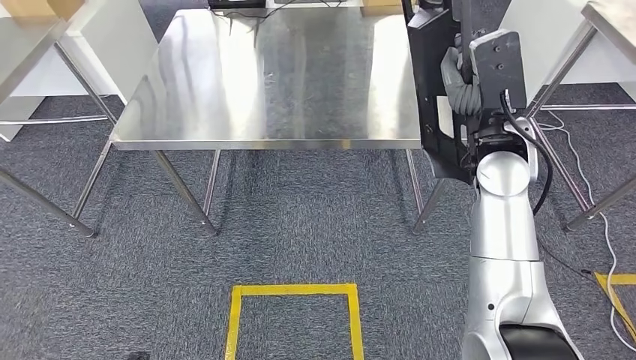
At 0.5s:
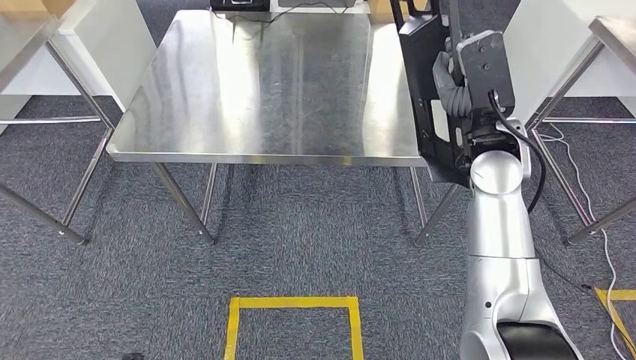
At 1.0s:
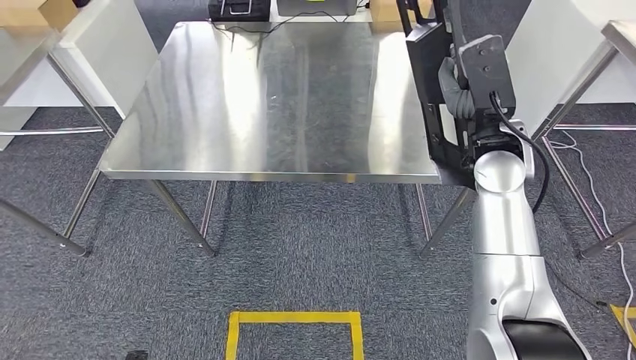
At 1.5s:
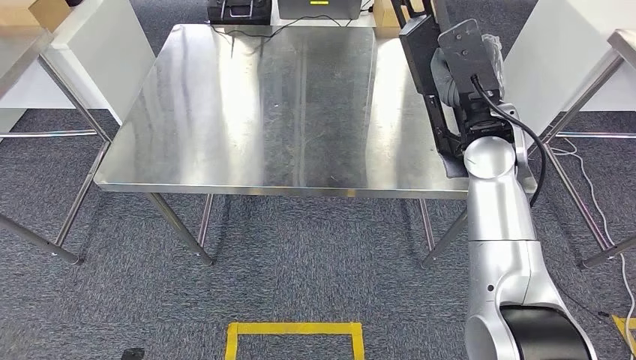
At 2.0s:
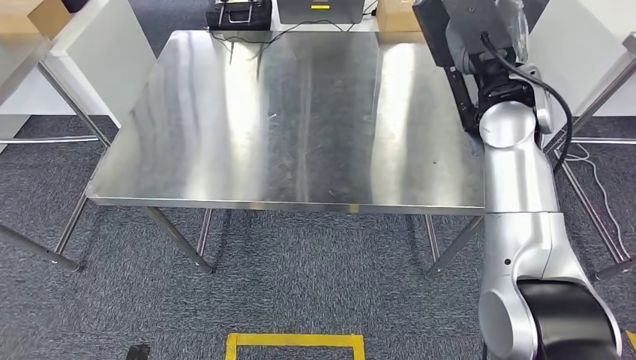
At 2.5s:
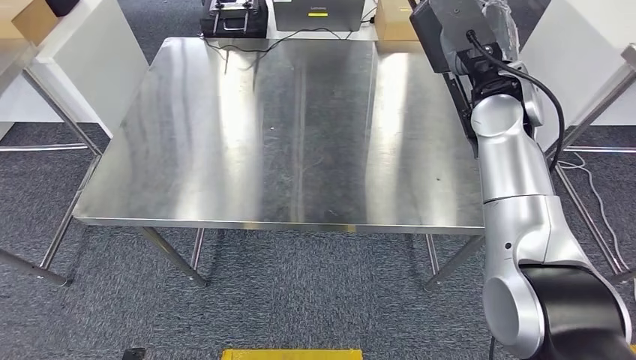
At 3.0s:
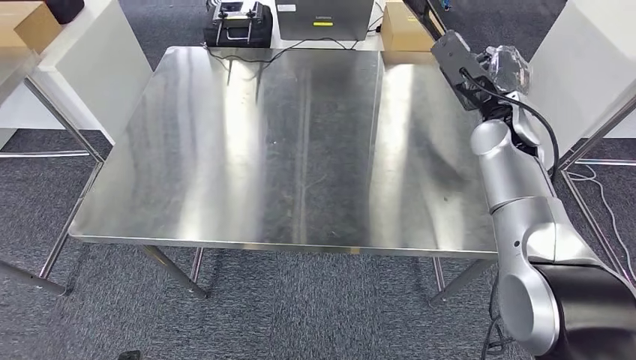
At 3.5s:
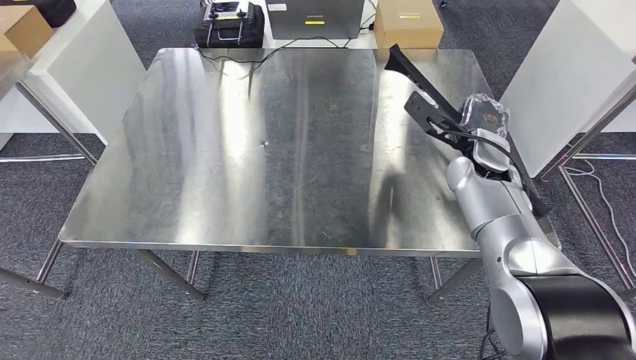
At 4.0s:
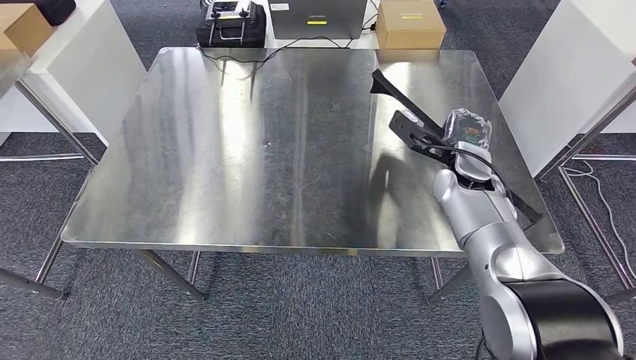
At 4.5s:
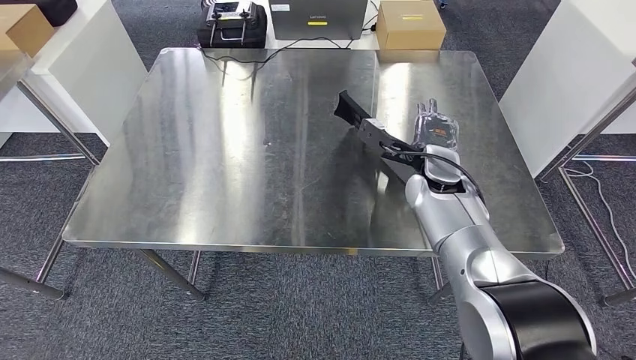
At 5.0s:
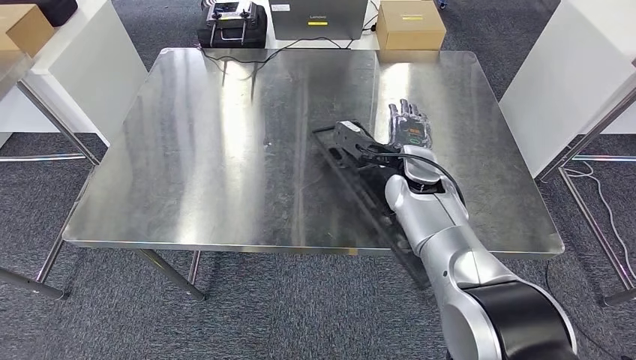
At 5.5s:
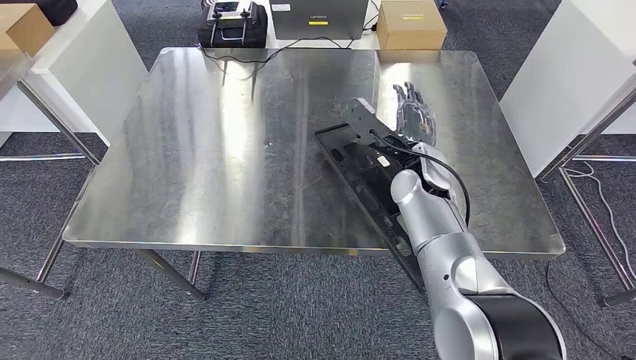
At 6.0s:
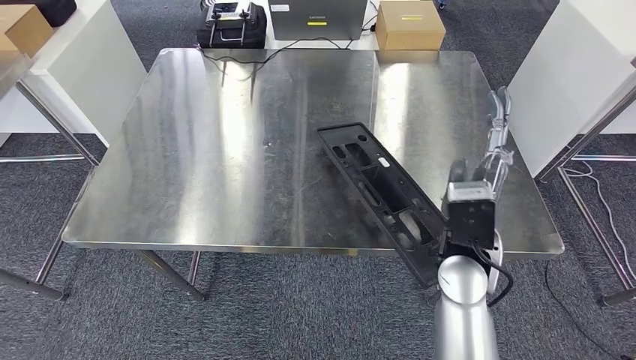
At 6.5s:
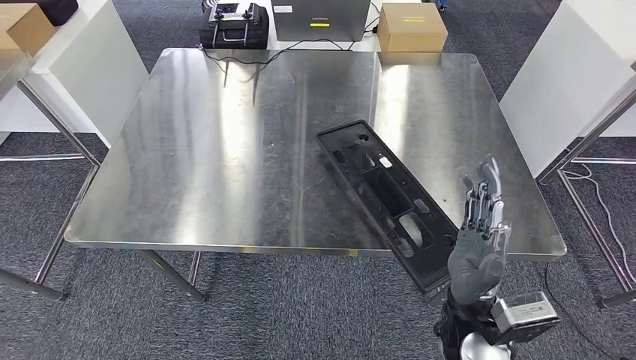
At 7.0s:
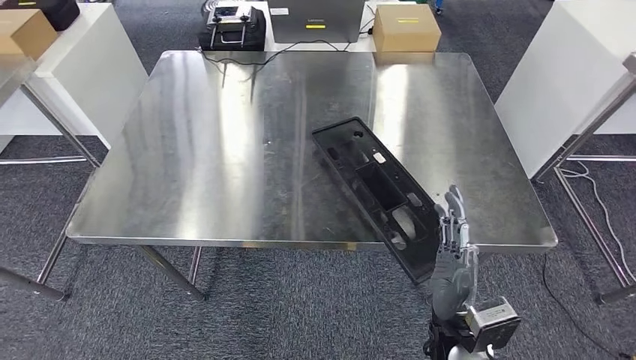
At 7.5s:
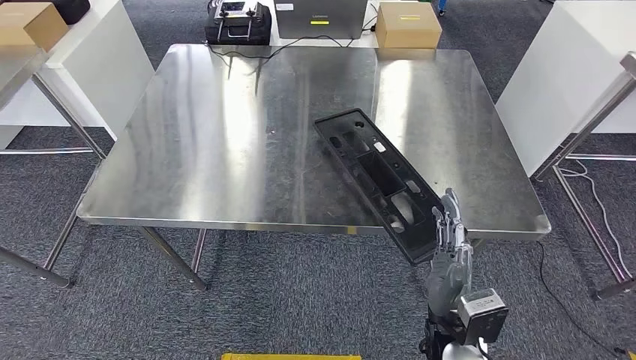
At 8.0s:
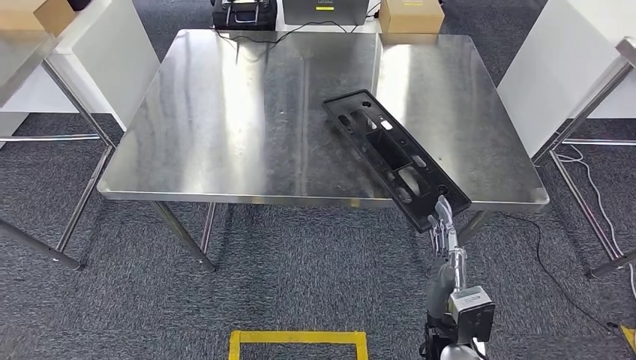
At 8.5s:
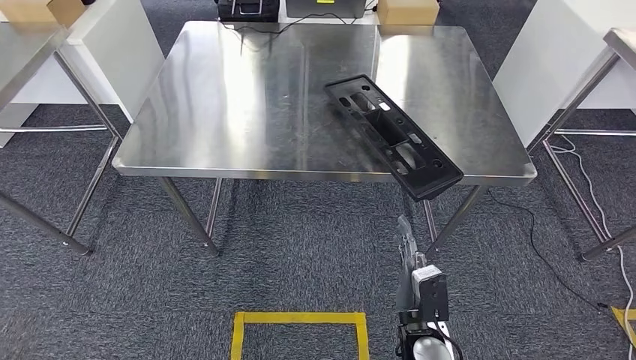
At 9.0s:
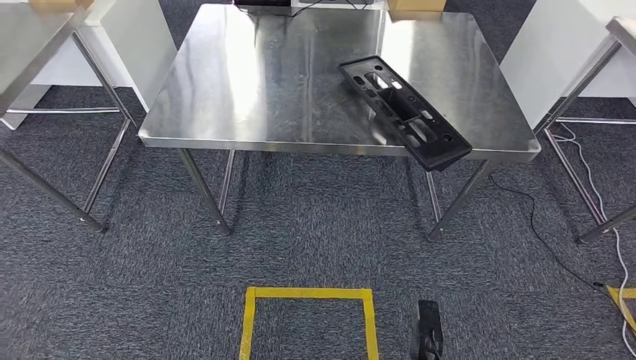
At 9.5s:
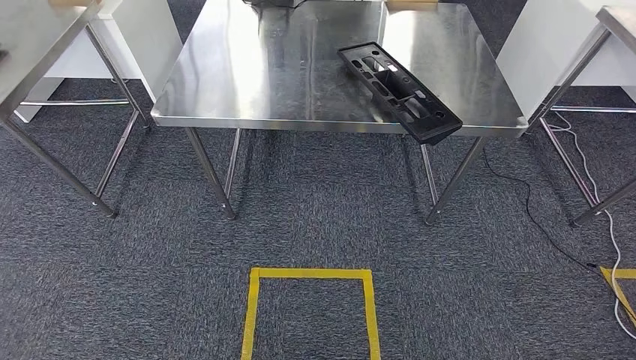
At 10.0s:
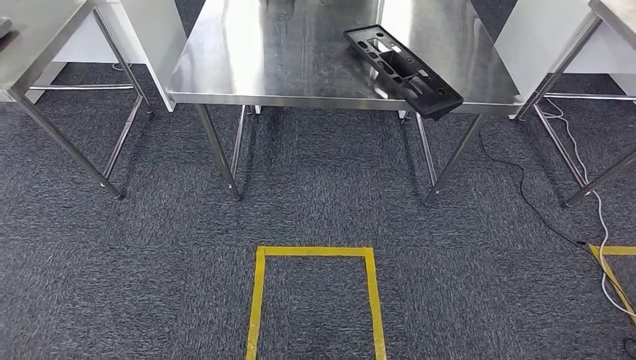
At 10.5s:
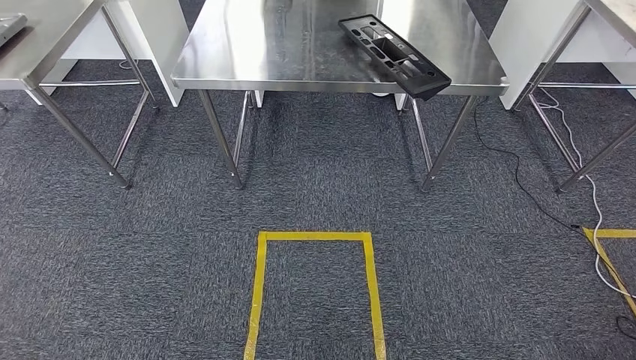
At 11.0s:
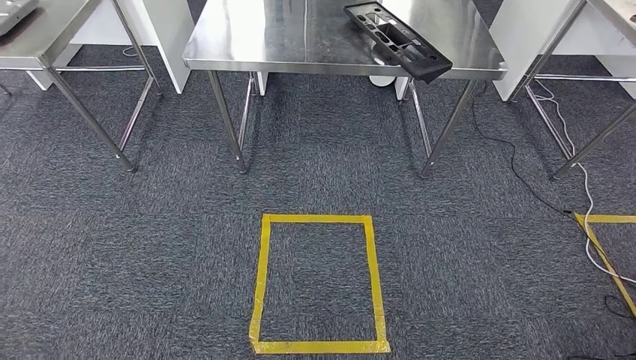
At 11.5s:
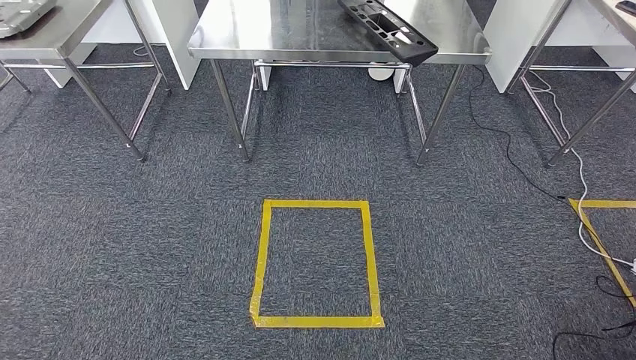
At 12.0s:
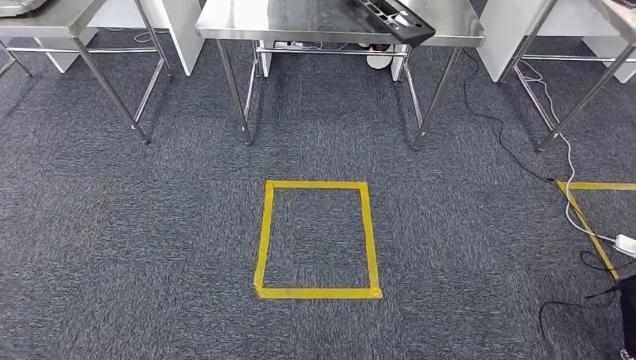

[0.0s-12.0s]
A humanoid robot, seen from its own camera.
Step, 0.0s to 7.5s: Insert the large material into the corresponding slot on the workbench.
4.0s to 6.0s: The right hand shifts roughly 20 cm backward and to the left.

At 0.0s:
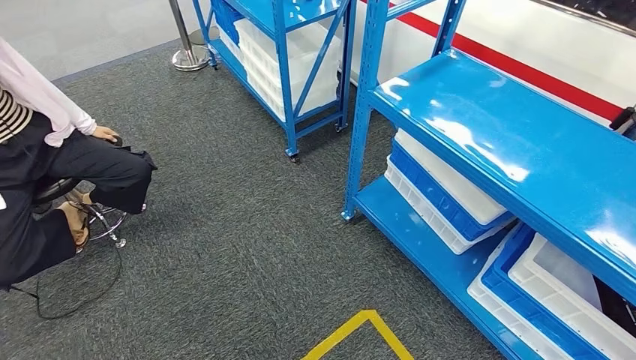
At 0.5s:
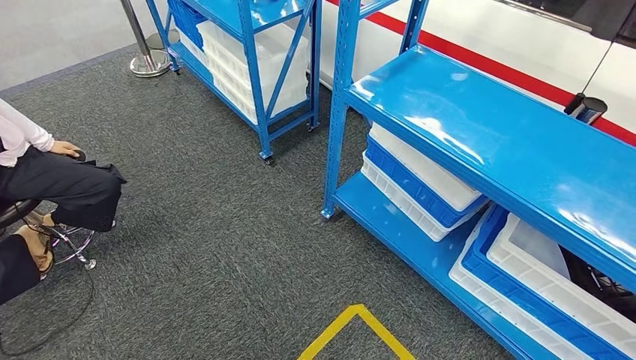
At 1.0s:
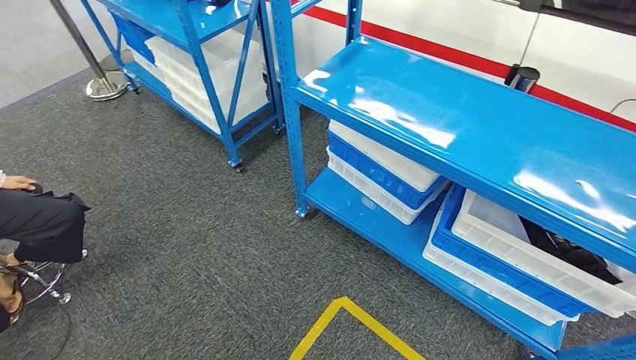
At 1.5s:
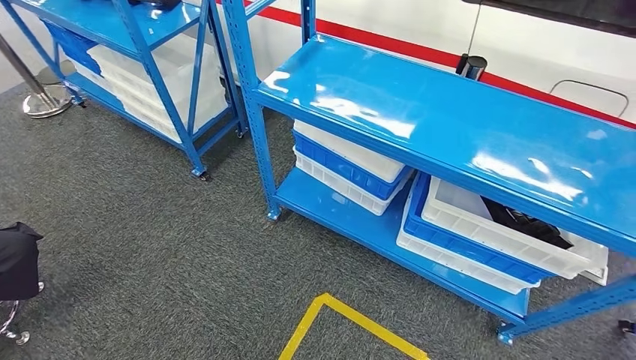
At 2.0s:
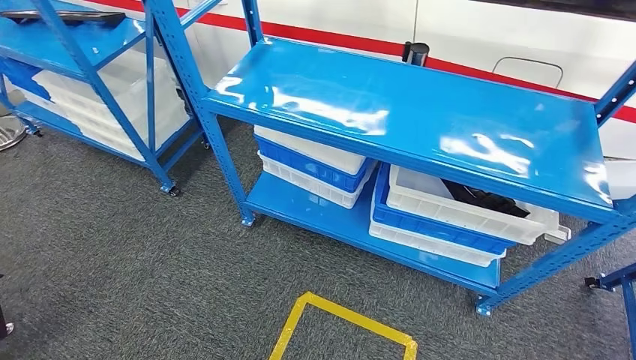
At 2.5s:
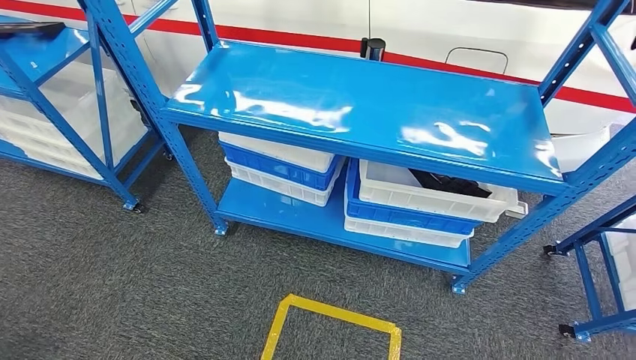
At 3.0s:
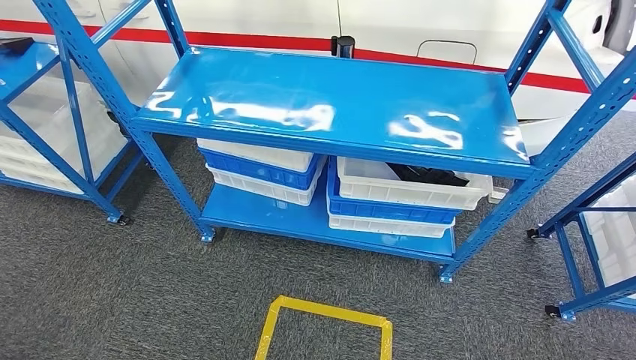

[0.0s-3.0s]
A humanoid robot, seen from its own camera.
Step, 0.0s to 3.0s: Return to the initial position at the shelf.
